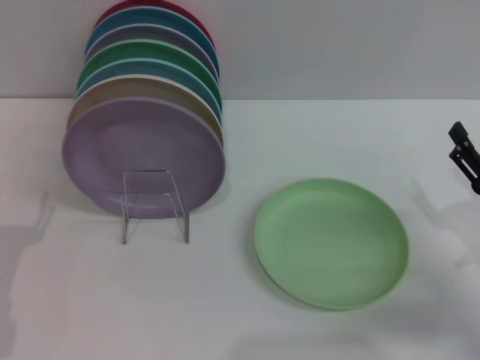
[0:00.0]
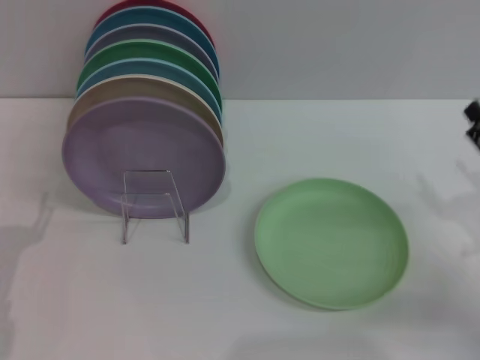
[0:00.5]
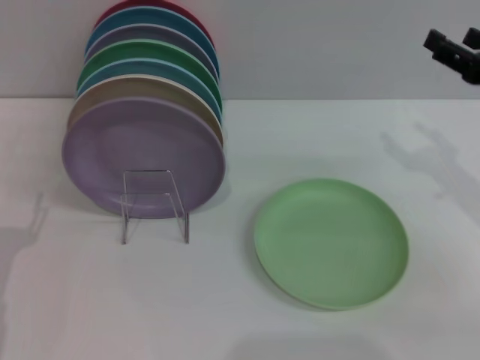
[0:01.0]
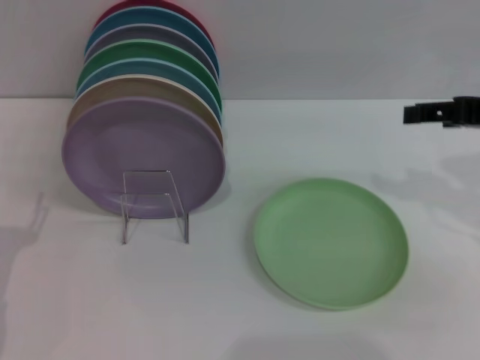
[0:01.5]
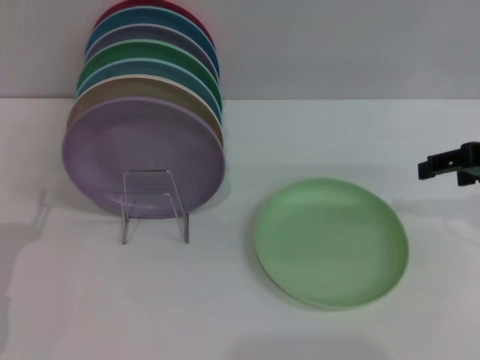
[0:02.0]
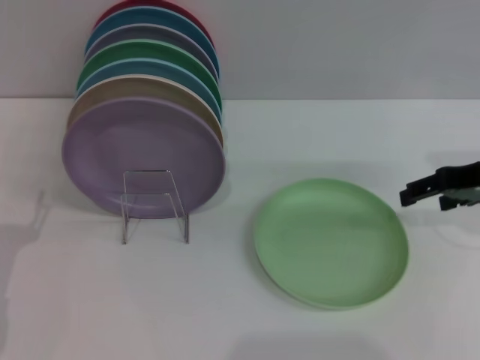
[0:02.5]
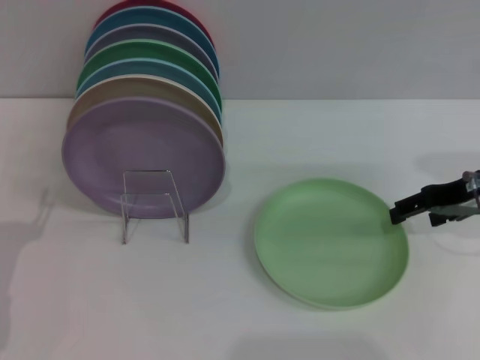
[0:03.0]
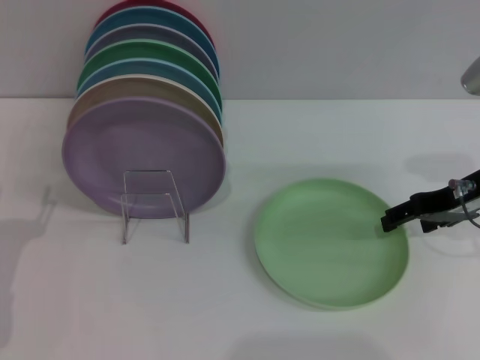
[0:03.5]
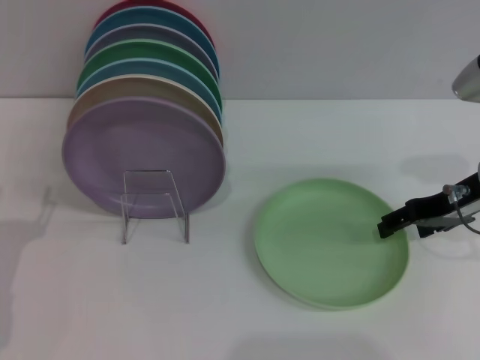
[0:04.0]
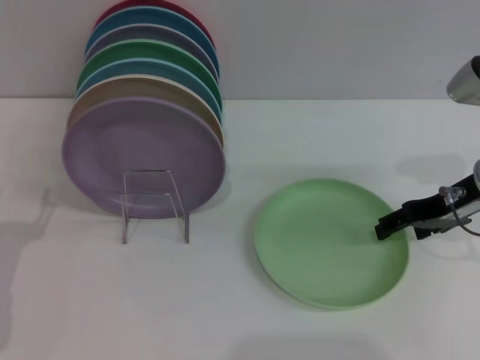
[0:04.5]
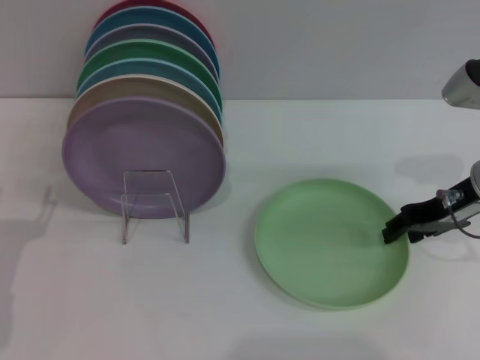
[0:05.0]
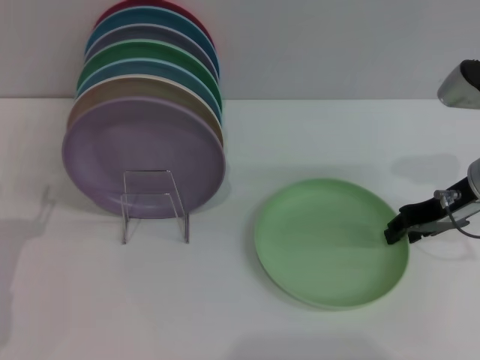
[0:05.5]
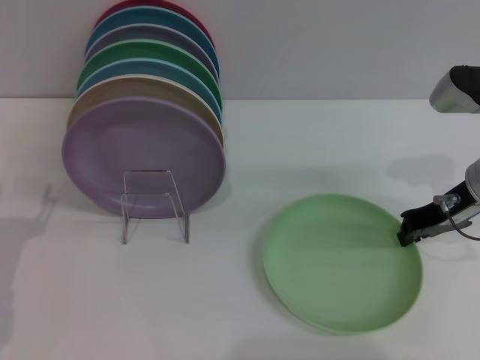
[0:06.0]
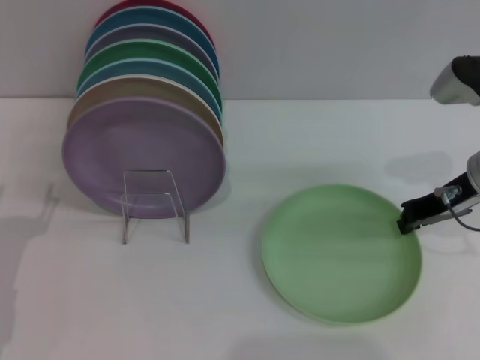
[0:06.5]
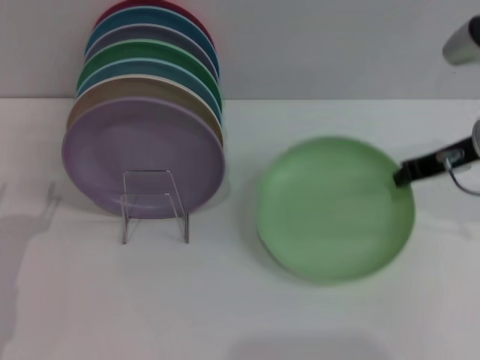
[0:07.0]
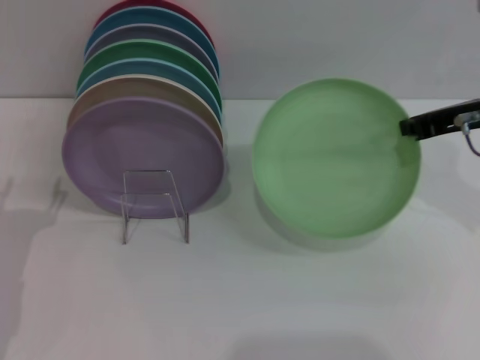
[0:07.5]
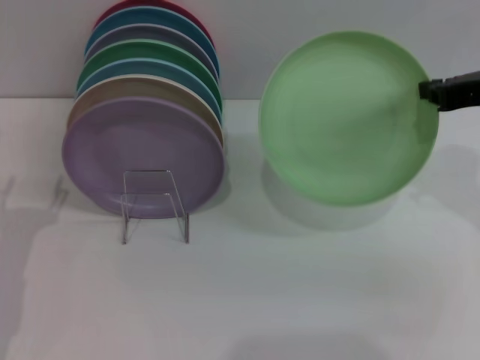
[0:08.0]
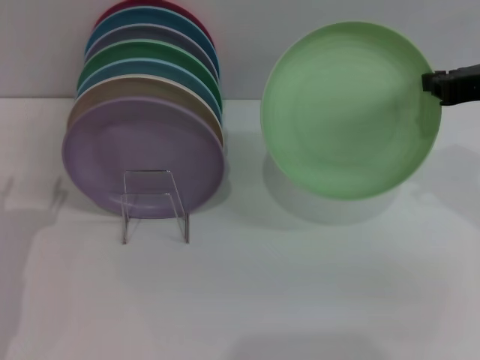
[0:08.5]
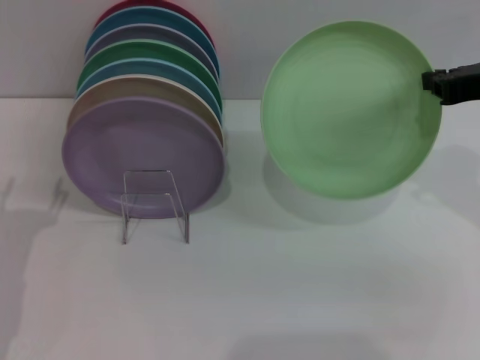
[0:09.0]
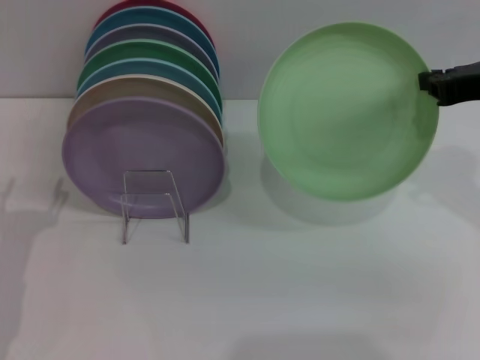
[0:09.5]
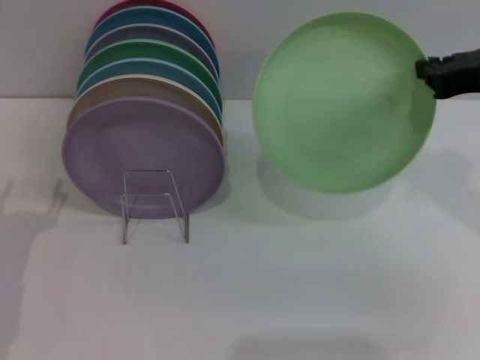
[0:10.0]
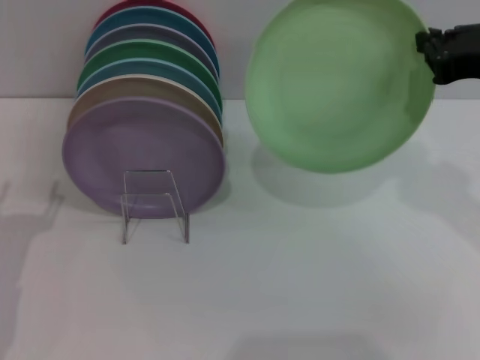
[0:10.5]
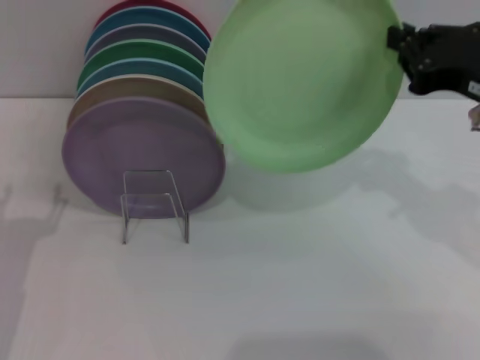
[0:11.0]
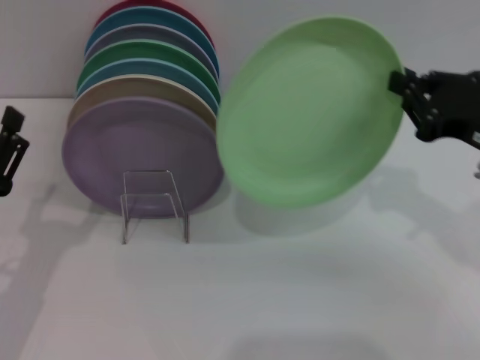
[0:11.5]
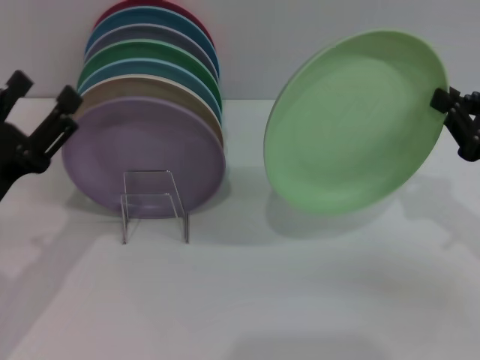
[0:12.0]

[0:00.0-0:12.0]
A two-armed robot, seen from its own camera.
Task of the whole recording: Grip the plate with one hand, pass it to the other, then set it on the shelf.
Step, 0:00.0 to 0:07.5: Pick up the plate with the right gripper.
0:00.0 to 0:02.0: The right gripper heads upward and forward, covering about 20 cm.
0:02.0 to 0:04.0: The right gripper shifts roughly 5 cm downward.
0:04.0 to 0:06.0: The right gripper closes its fingers.
0:06.0 to 0:08.0: The right gripper heads upward, covering about 10 cm.
0:08.0 to 0:10.0: There are only small adjustments of the grippers.
0:10.0 to 0:12.0: The left gripper shifts by roughly 5 cm. The right gripper heads downward, to the right and backward, covering approximately 15 cm.

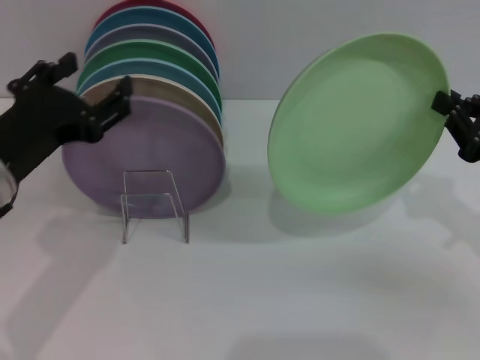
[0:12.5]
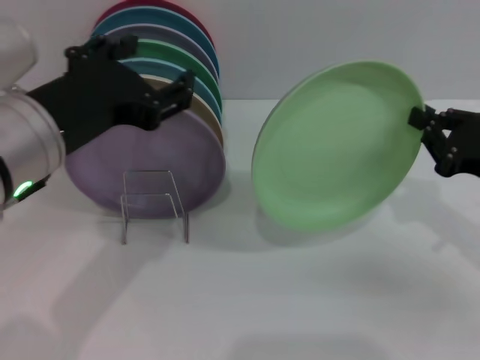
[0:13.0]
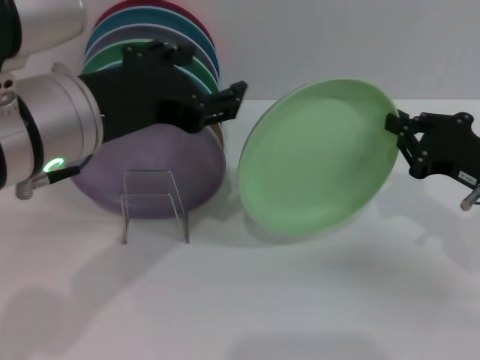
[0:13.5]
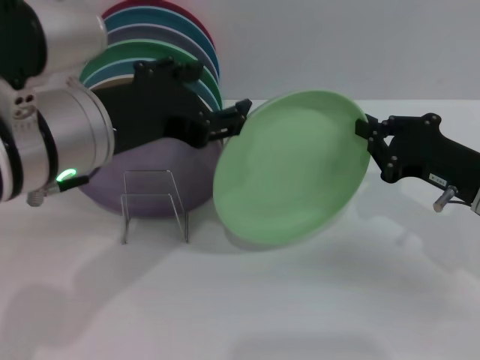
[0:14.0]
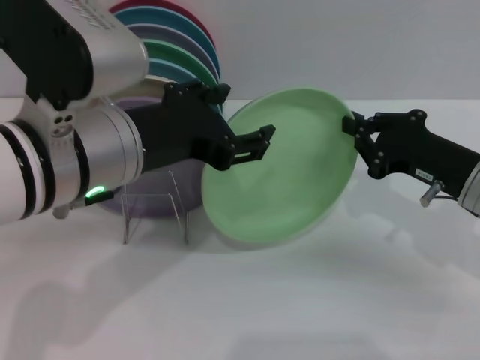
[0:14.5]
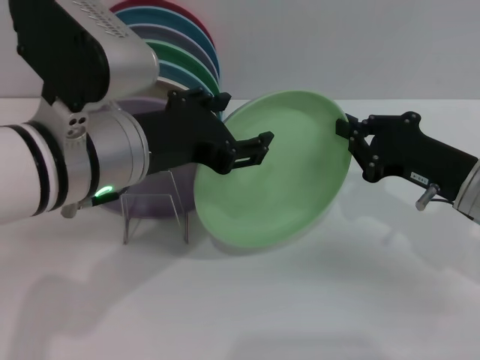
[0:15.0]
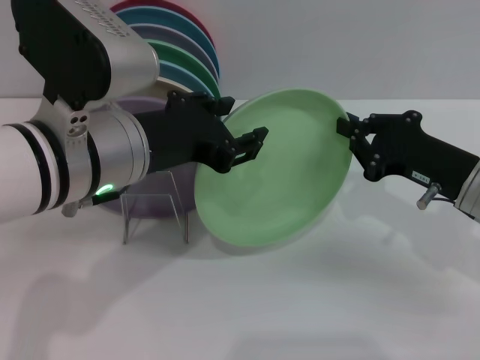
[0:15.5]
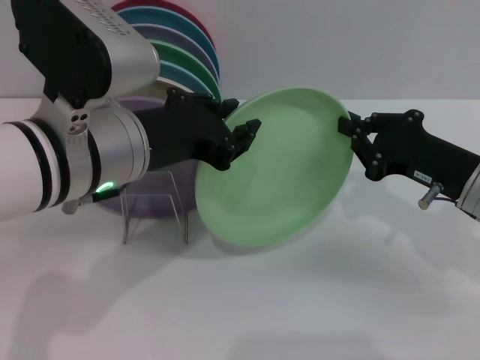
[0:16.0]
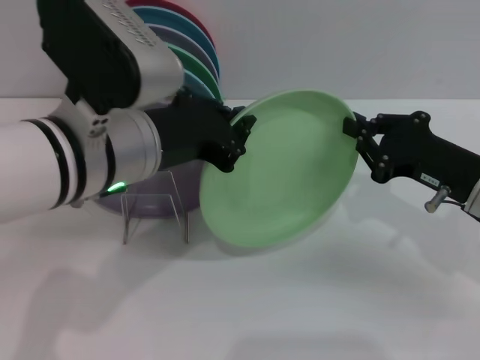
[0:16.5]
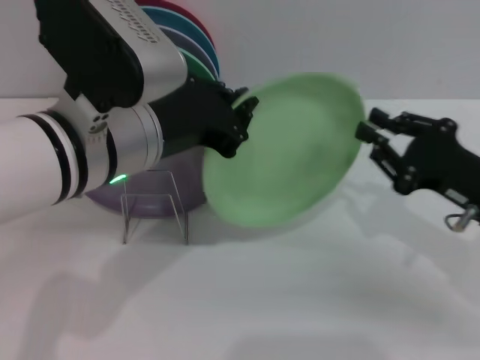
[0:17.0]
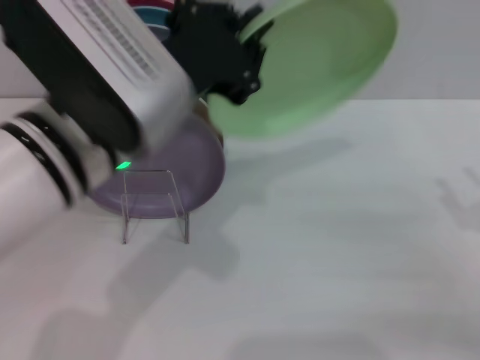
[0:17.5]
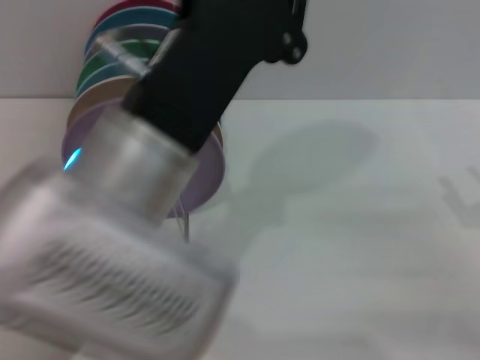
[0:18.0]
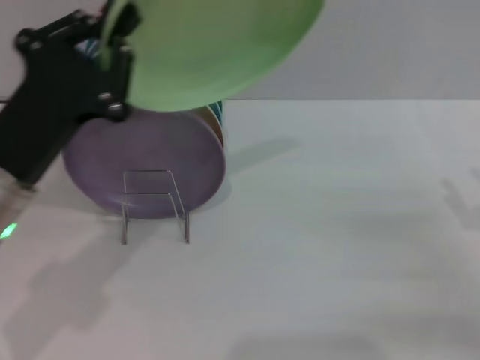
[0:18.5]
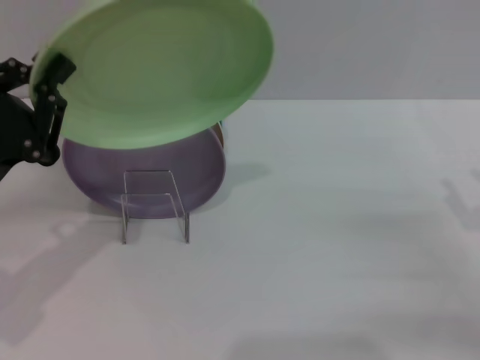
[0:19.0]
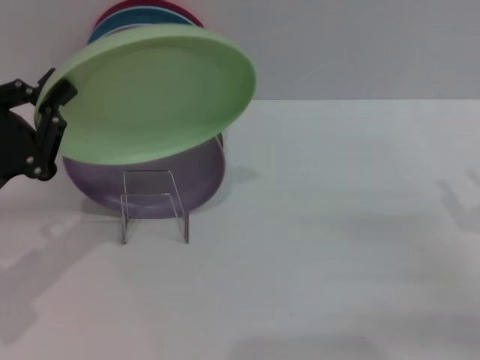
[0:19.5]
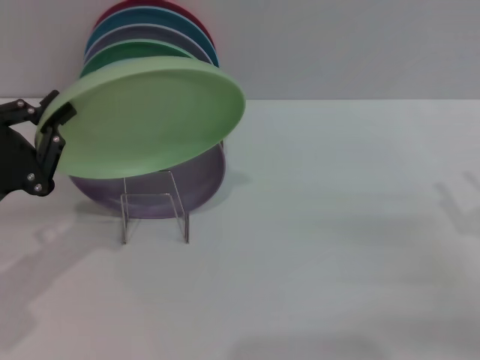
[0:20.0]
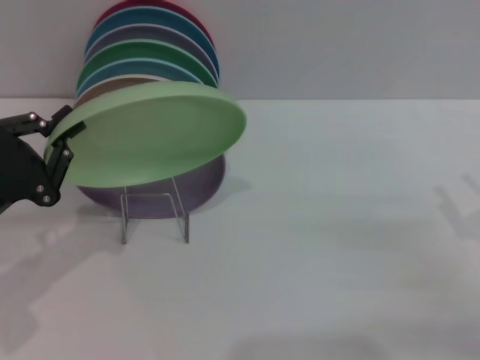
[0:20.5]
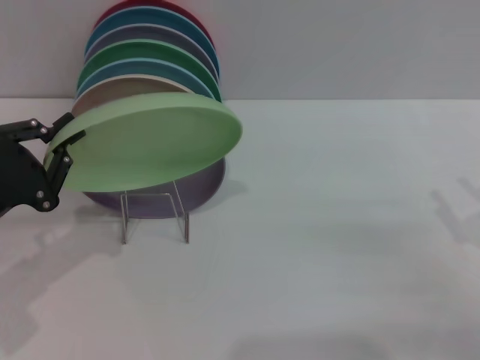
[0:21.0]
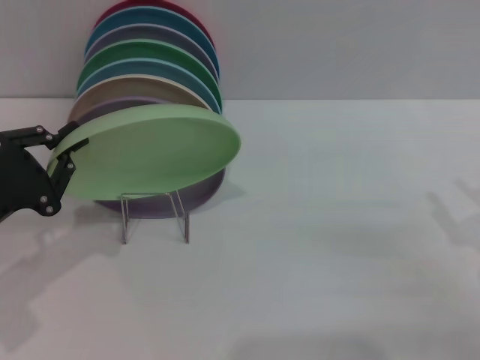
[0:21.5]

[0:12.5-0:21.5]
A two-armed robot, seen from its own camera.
Task of the whole recording: Grip the plate with one hand, pass it to the other, then set it on the shelf.
Step, 0:12.5 to 0:17.0: Pass the plate from the right gripper to the left gripper.
0:12.5 to 0:14.5: The left gripper shifts roughly 10 cm to the right; the right gripper is displaced to the left by approximately 5 cm.
0:14.5 to 0:17.0: The left gripper closes up.
0:17.0 to 0:19.5: The right gripper is displaced to the right by some 5 cm, and opens up. Meanwhile the left gripper shifts about 20 cm to the left and downward.
0:19.5 to 0:21.5: The grippers stay close to where they were, moving slightly.

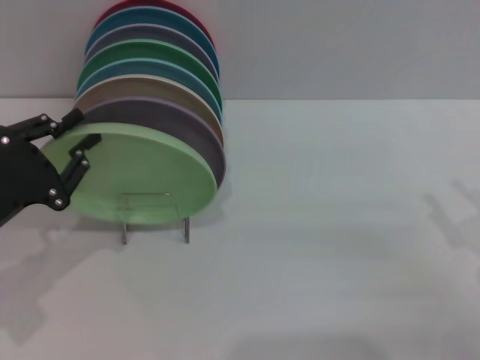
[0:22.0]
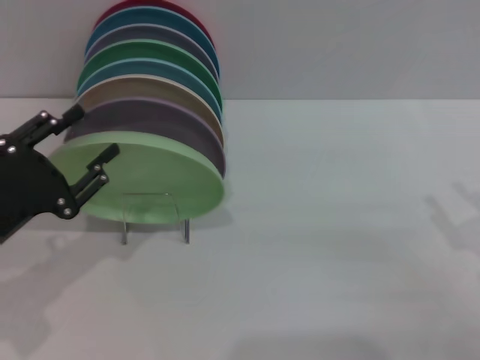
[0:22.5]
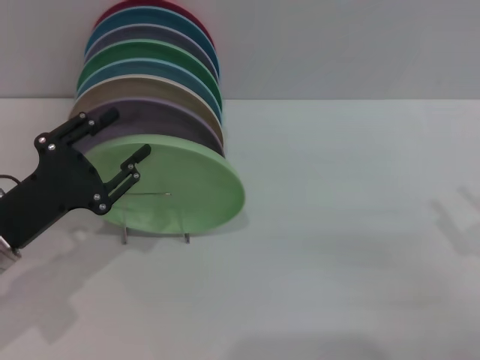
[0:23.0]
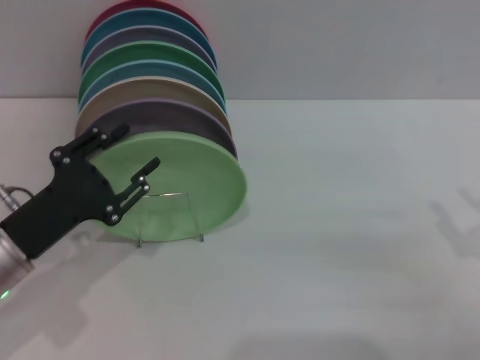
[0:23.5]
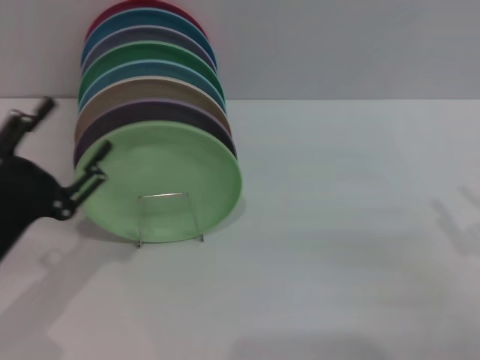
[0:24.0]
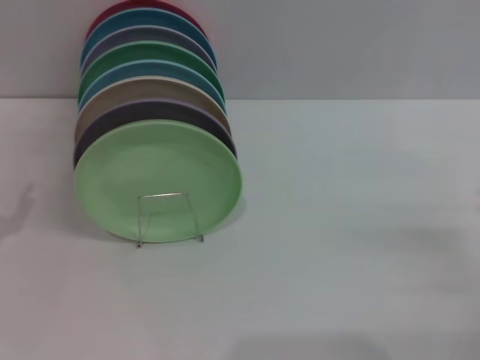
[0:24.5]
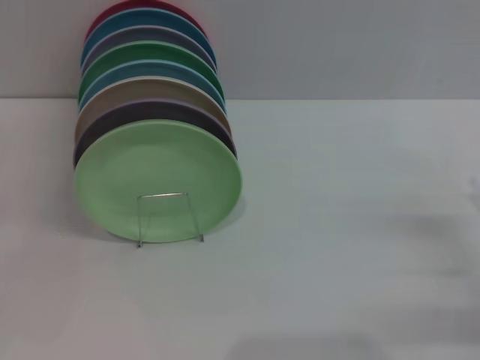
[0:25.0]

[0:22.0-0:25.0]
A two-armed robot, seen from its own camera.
Task of the whole recording: Grip the plate with one hand, pass it to the other, then set it on the shelf.
0:22.0 to 0:23.5: The left gripper opens its fingers.
0:23.5 to 0:25.0: The left gripper heads to the left, covering about 10 cm.

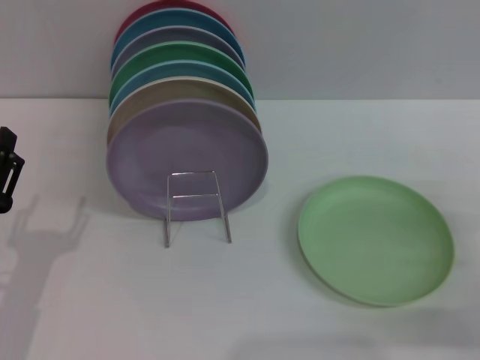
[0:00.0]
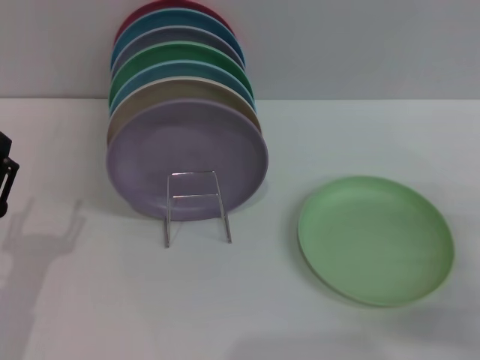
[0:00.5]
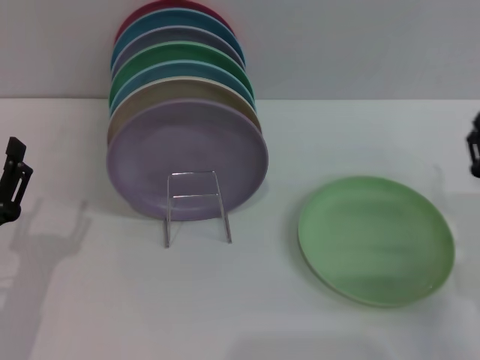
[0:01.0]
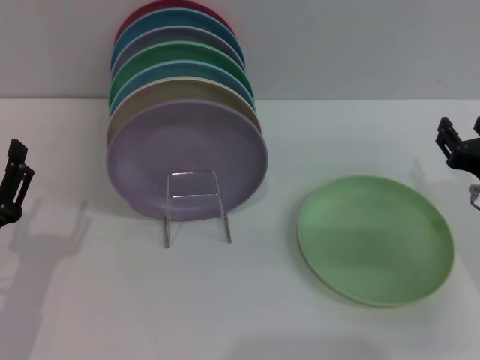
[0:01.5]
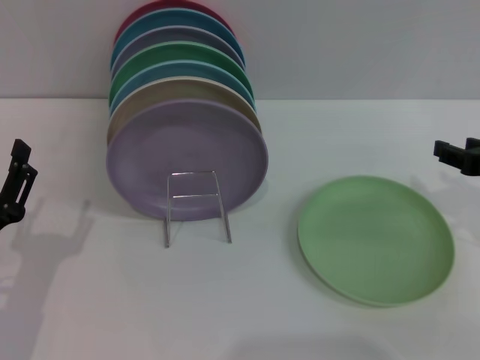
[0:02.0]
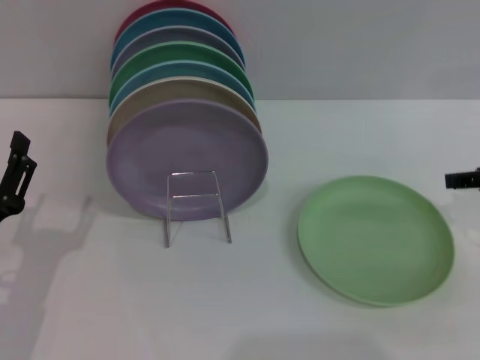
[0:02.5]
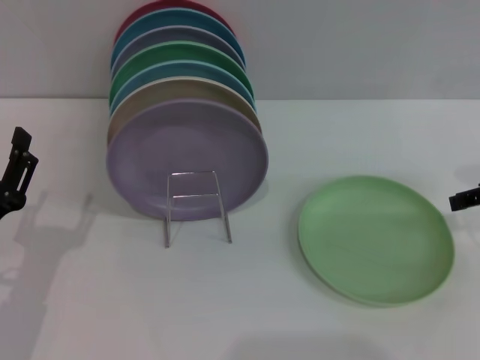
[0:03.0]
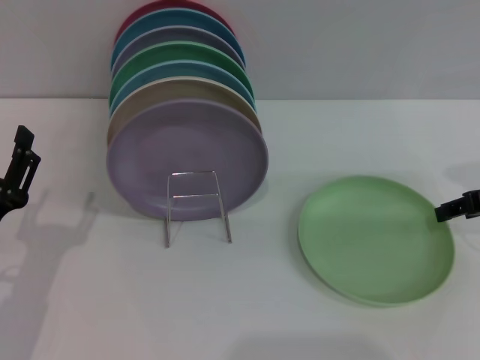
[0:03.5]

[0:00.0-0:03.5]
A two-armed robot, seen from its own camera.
Task of the whole recording: Grip the plate with one hand, pass it to the other, then set it on the shelf.
0:00.0 to 0:02.0: The right gripper is displaced upward and forward by about 10 cm.
0:02.0 to 0:03.5: The right gripper shifts by about 5 cm.
